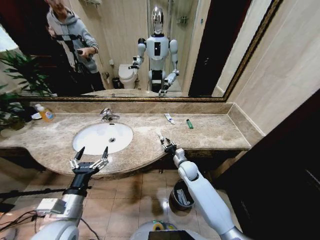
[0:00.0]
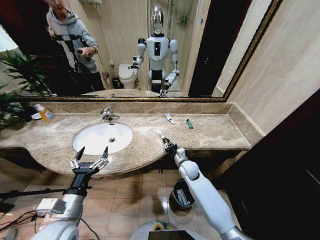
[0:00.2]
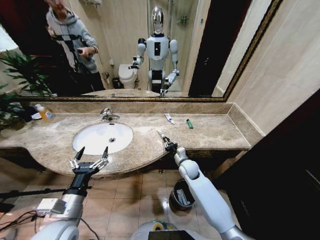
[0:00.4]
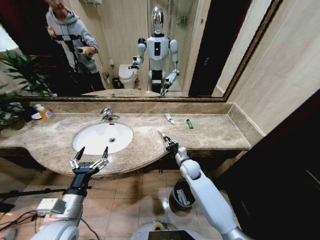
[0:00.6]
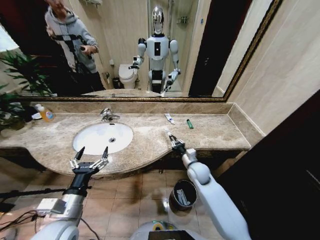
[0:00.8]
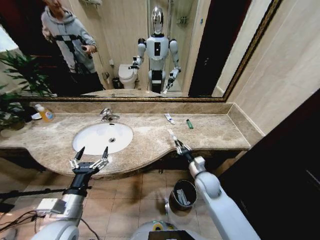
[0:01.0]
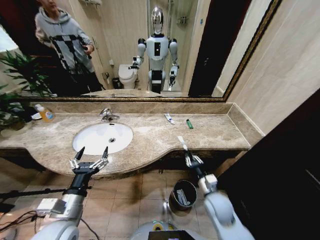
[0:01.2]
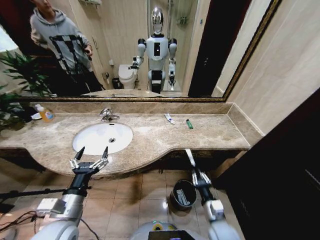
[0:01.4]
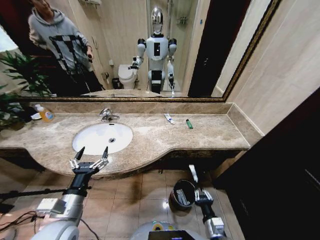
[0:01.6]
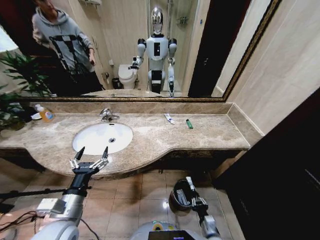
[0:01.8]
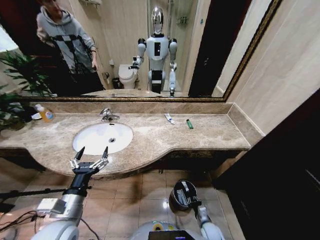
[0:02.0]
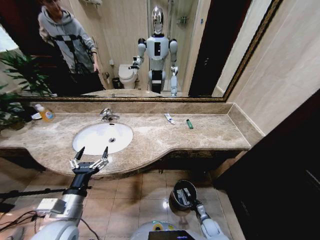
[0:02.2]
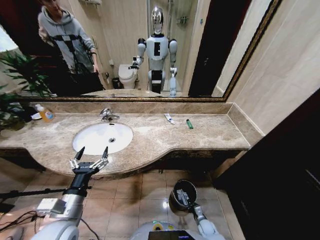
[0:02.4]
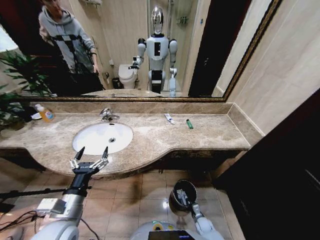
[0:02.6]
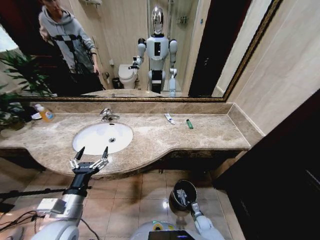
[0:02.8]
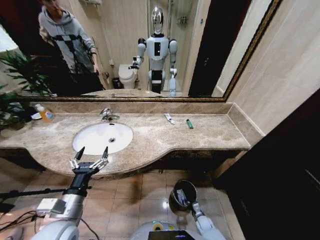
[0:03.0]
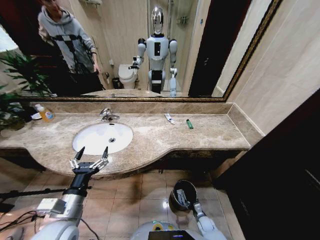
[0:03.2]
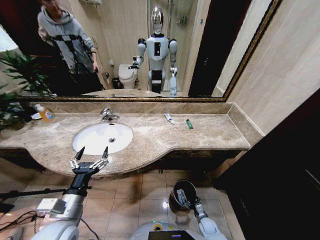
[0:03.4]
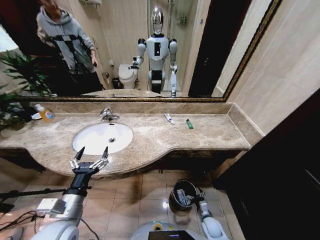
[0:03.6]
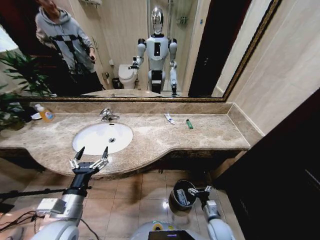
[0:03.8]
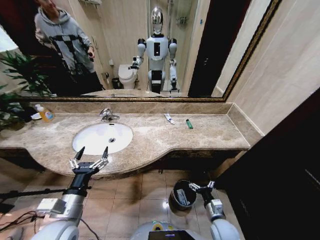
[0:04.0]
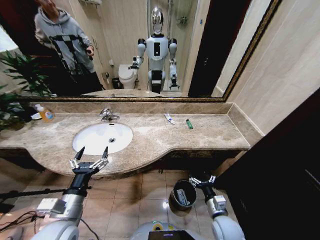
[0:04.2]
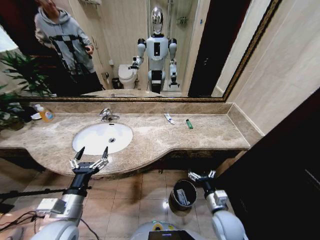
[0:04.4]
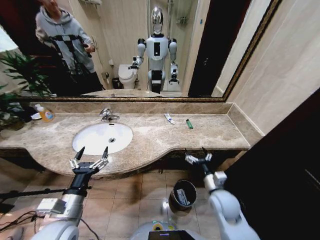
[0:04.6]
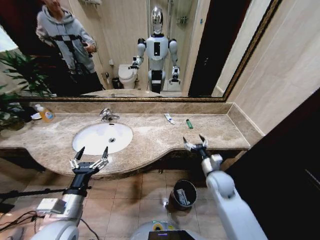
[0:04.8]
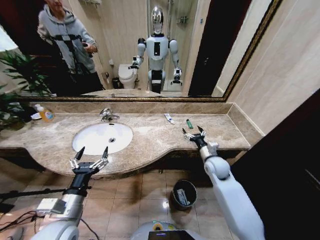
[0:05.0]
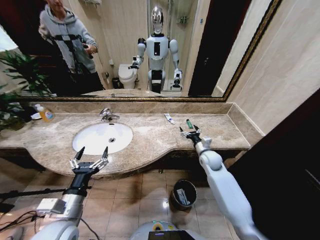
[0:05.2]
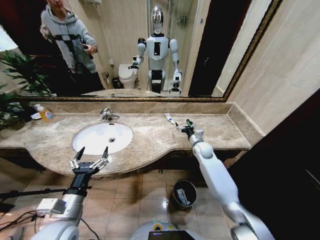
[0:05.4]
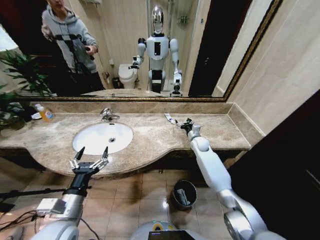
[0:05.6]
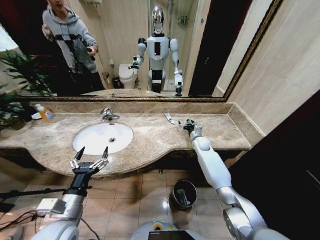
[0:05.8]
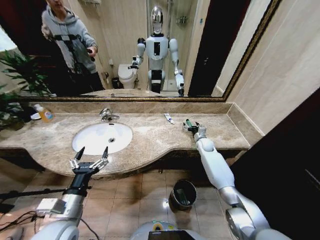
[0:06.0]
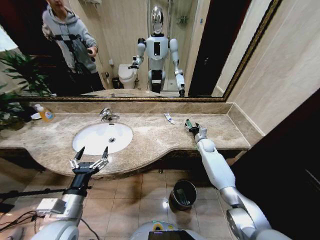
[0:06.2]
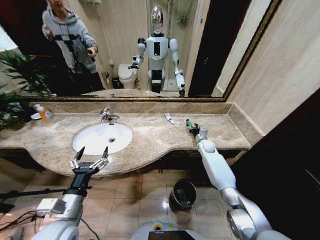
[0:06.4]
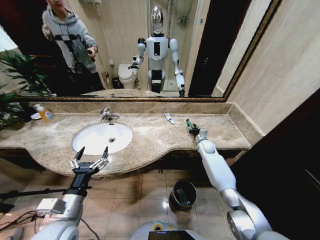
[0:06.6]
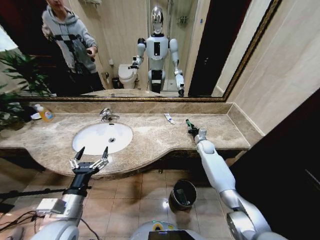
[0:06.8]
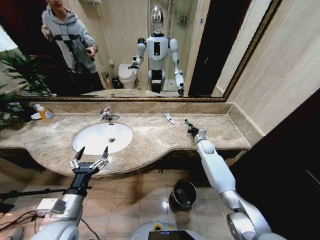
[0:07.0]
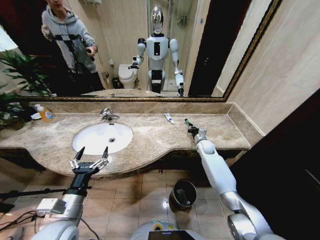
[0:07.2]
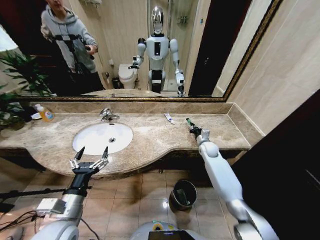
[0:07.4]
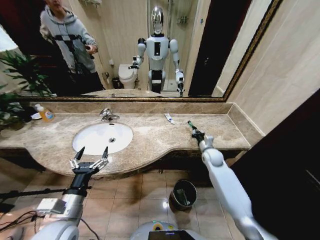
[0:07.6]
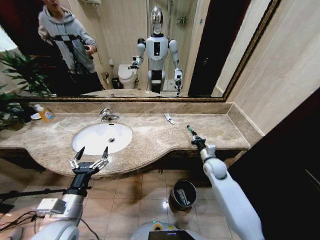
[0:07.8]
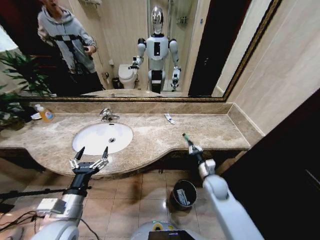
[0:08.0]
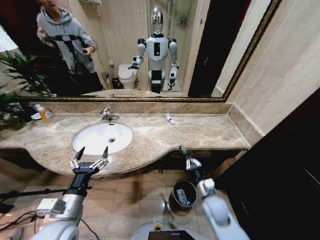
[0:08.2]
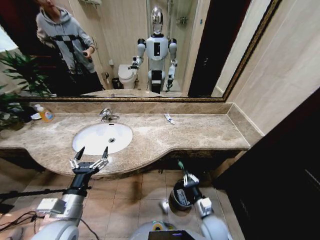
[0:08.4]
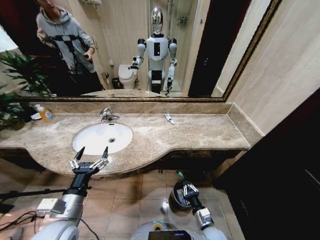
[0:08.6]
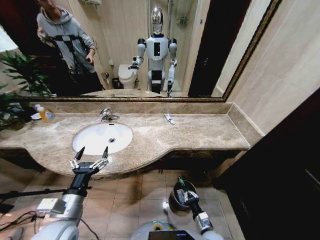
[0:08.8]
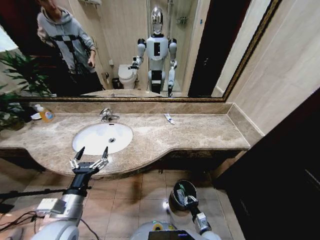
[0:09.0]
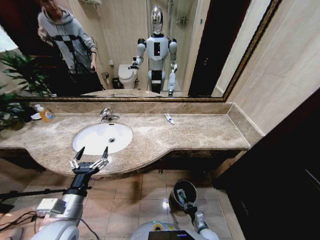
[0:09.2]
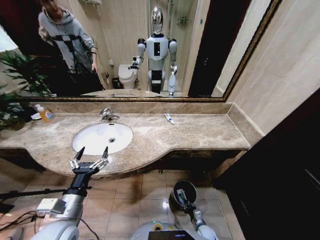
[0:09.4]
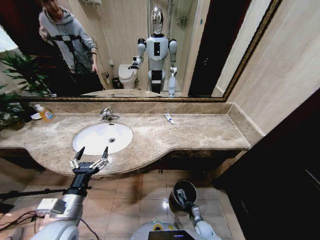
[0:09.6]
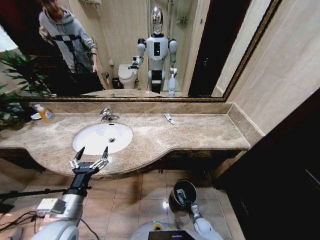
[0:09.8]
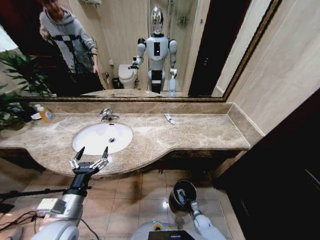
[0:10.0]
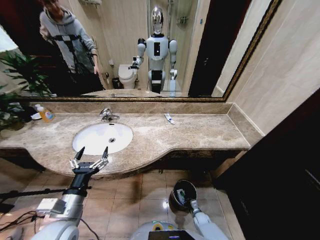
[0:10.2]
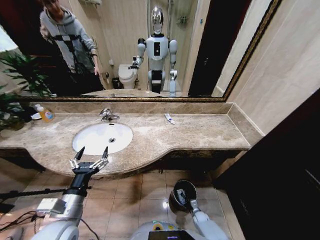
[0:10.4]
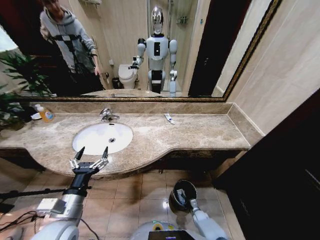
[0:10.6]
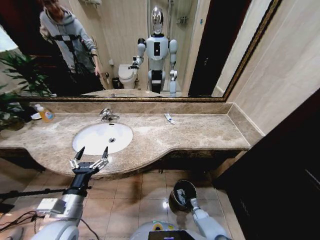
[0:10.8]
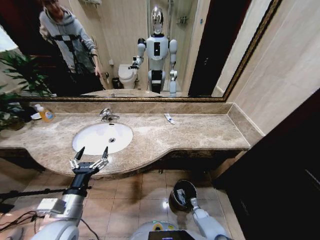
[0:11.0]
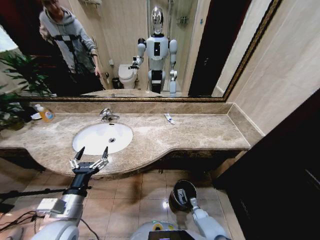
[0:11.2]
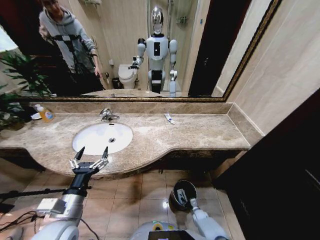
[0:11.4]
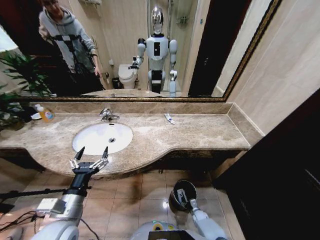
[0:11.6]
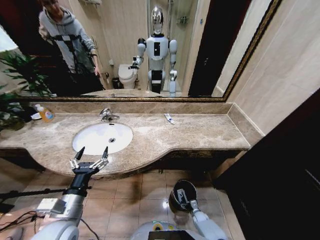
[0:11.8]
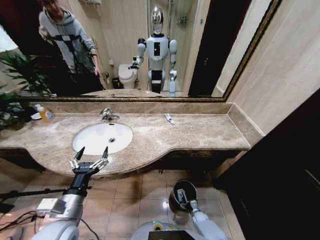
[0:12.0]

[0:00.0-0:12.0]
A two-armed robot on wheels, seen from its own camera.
Task of the whole recording: Pick up the trash from the sink and place it in the trash bin.
0:00.0 to 0:01.6: The right gripper shifts some 30 cm backward.
0:01.6 to 0:03.0: The right gripper moves downward and forward, approximately 25 cm.
0:03.0 to 0:04.4: The right gripper goes some 30 cm upward, and opens its fingers.
0:04.4 to 0:06.0: The right gripper goes roughly 35 cm forward.
0:06.0 to 0:07.6: The right gripper shifts some 10 cm backward, and closes up.
0:07.6 to 0:09.0: The right gripper moves backward and downward, roughly 40 cm.
0:09.0 to 0:10.4: The right gripper heads downward and forward, covering some 20 cm.

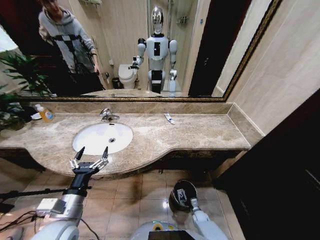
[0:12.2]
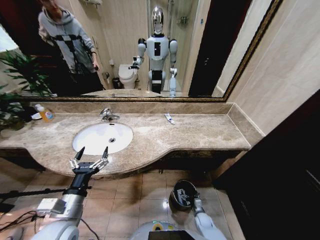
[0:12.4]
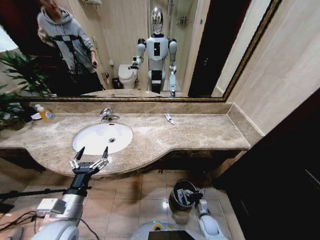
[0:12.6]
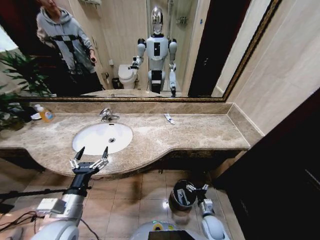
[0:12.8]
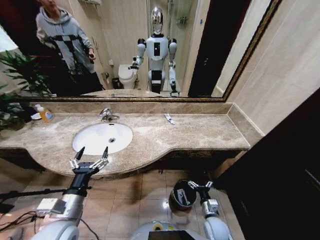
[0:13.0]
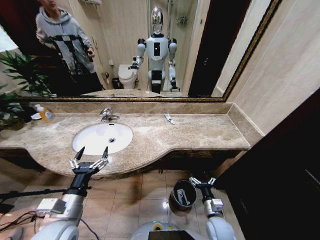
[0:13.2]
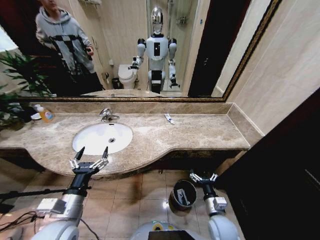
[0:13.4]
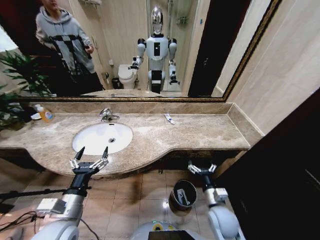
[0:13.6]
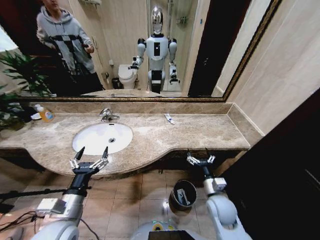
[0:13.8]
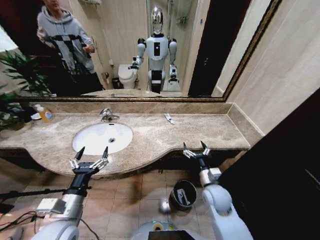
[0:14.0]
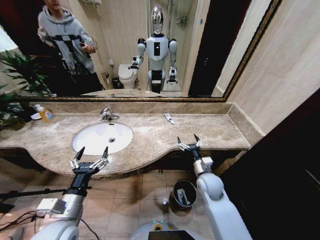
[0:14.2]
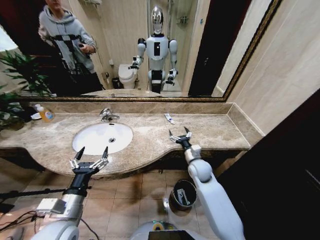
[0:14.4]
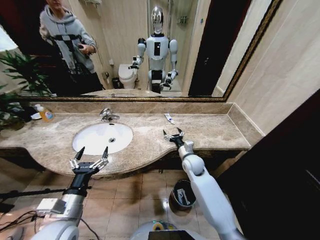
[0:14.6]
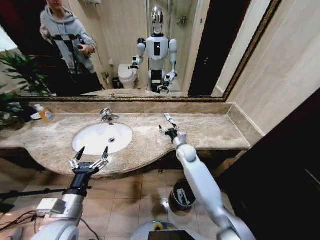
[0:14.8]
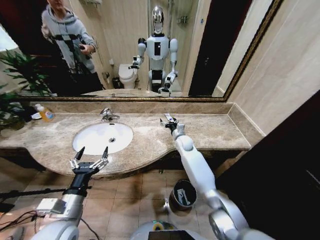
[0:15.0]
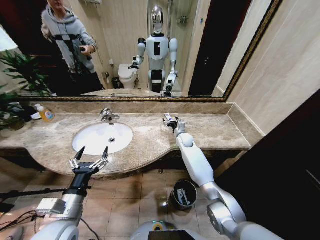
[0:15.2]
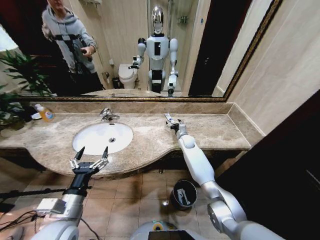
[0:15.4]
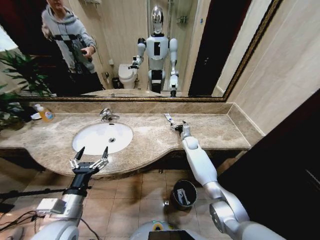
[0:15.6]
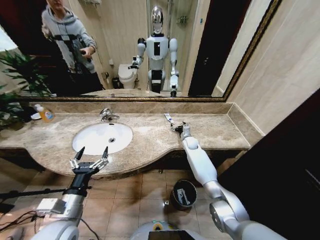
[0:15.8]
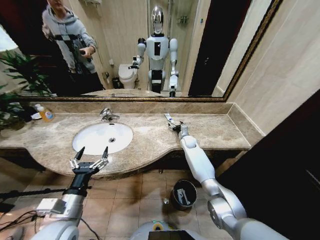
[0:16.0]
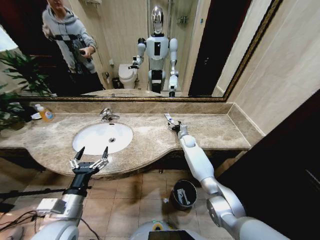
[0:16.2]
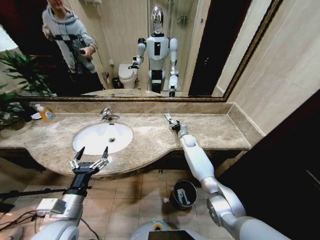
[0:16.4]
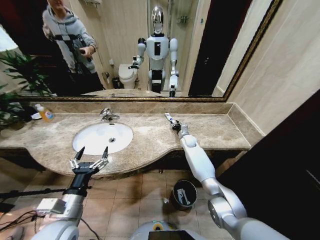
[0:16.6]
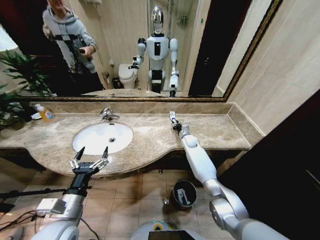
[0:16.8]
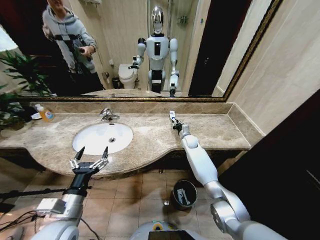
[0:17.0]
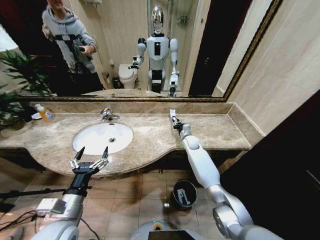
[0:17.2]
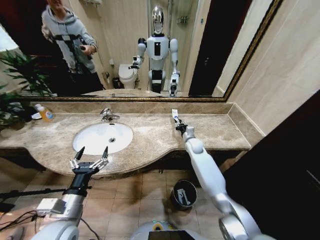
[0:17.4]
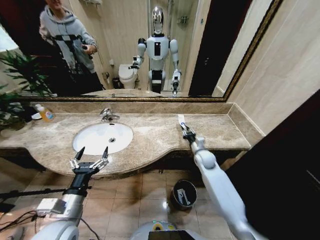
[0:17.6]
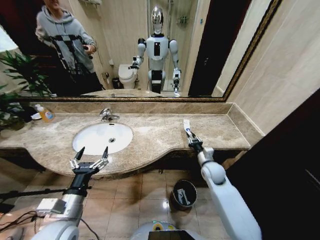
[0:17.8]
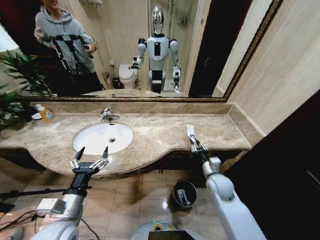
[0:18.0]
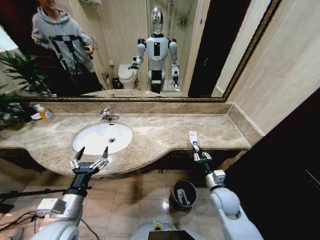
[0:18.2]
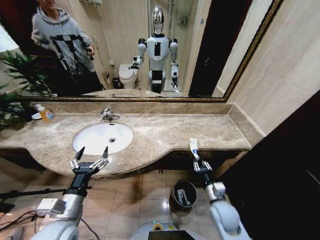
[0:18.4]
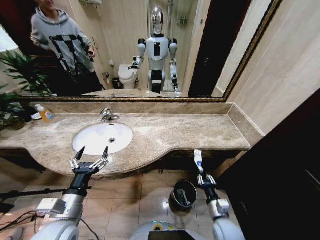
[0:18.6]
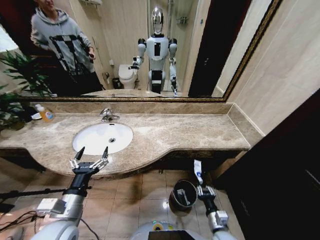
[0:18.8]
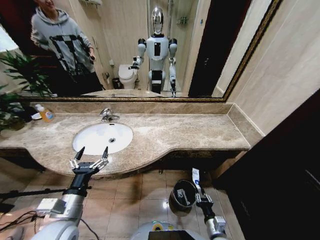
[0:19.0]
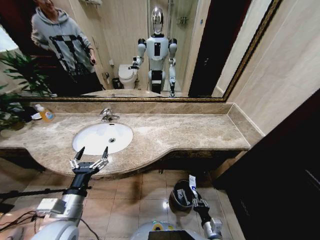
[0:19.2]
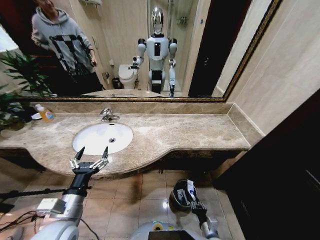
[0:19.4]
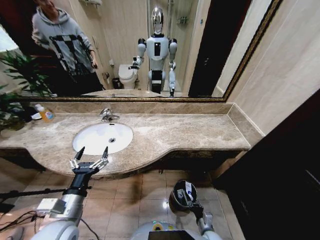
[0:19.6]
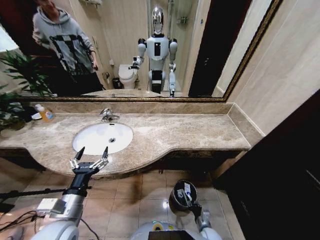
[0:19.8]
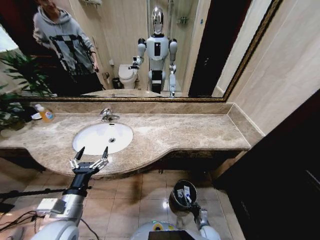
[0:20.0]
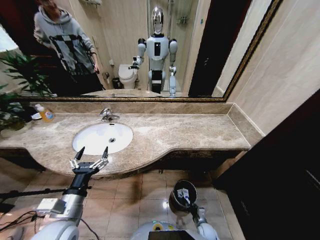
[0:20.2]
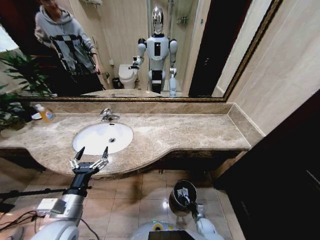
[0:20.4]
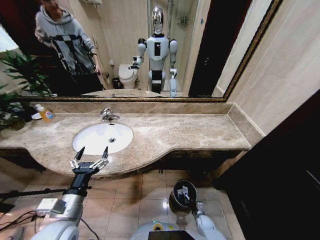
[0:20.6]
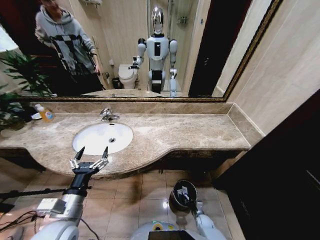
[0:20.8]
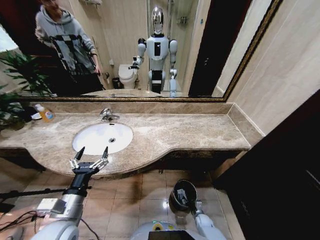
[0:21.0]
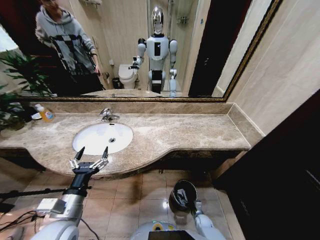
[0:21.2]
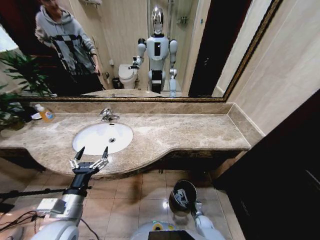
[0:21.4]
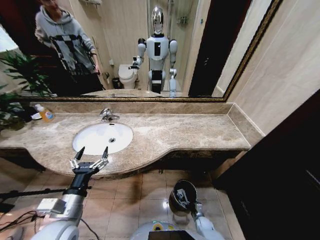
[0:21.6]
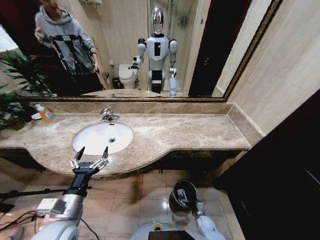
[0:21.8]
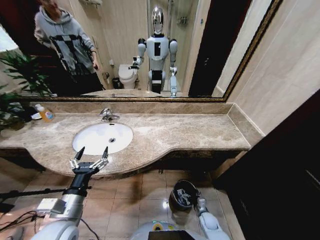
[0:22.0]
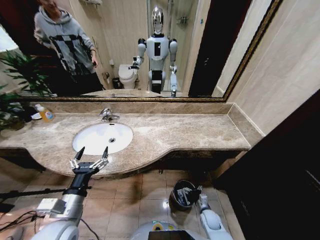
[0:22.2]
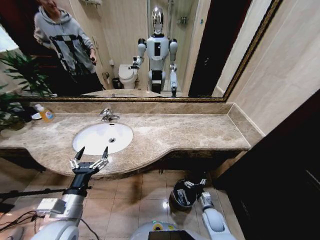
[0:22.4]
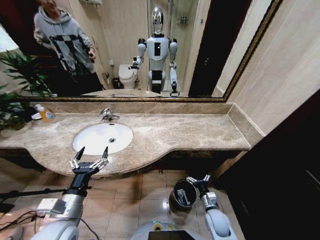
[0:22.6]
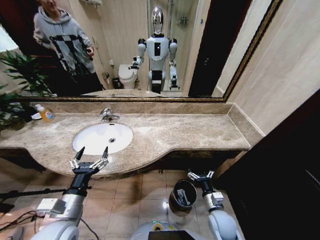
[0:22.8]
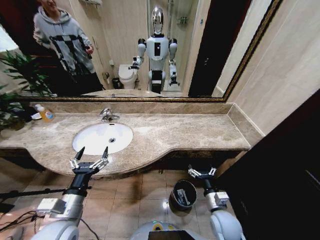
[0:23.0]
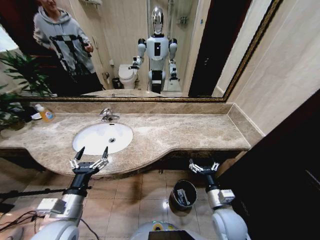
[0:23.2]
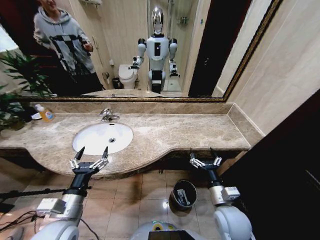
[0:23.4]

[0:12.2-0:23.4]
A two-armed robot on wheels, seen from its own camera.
Task of the whole recording: Pick up the trash from the sink and place it in the trash bin.
0:12.2 to 0:13.8: The right gripper heads upward, covering about 35 cm.
0:13.8 to 0:15.4: The right gripper heads forward, covering roughly 35 cm.
0:15.4 to 0:17.0: The right gripper closes up.
0:17.0 to 0:18.6: The right gripper is displaced backward by about 40 cm.
0:18.6 to 0:20.2: The right gripper moves downward, about 25 cm.
0:20.2 to 0:21.8: The right gripper opens its fingers.
0:21.8 to 0:23.4: The right gripper shifts about 35 cm upward.
